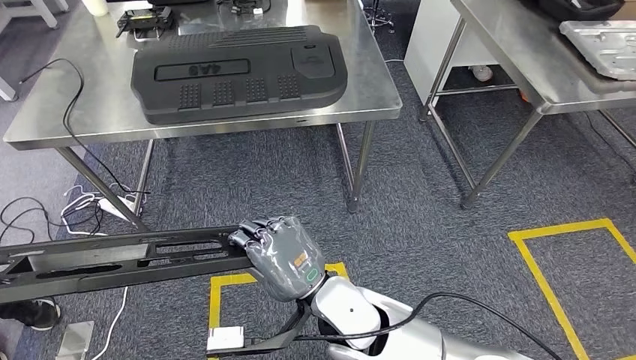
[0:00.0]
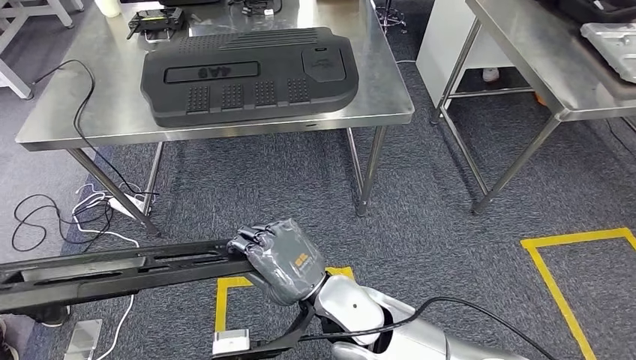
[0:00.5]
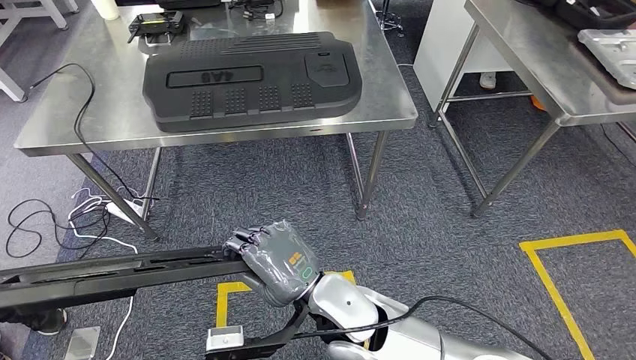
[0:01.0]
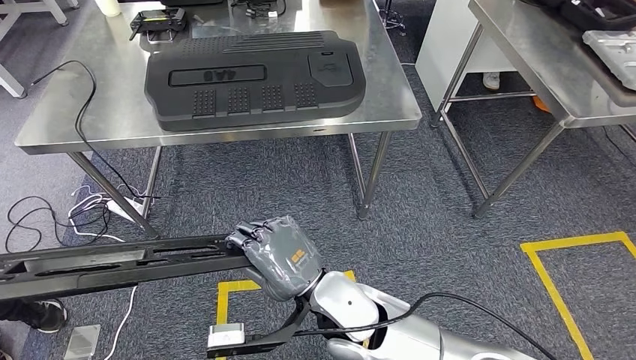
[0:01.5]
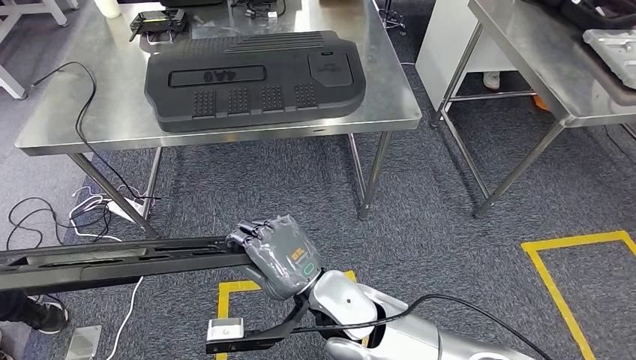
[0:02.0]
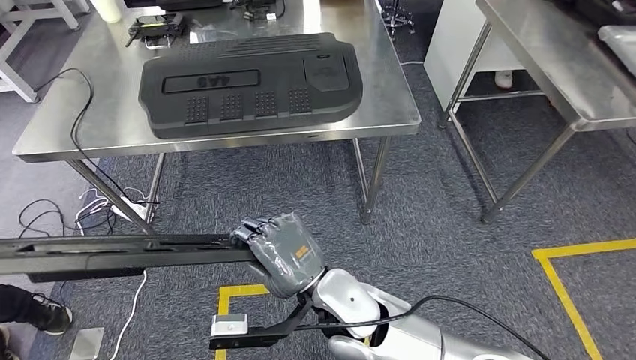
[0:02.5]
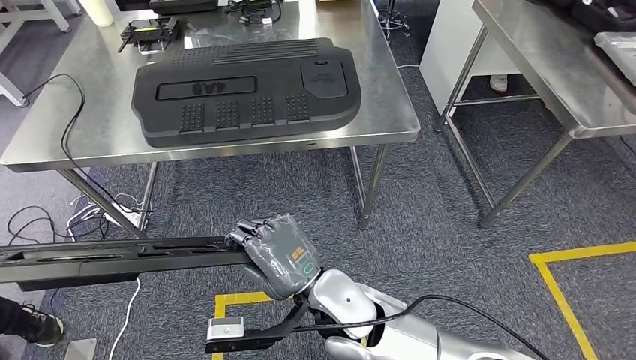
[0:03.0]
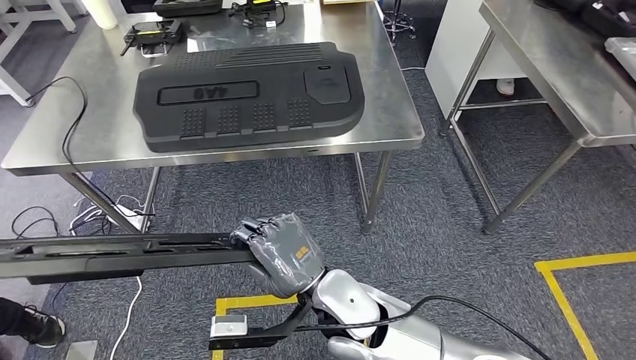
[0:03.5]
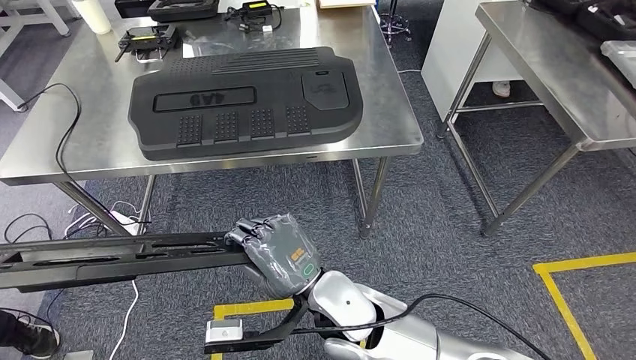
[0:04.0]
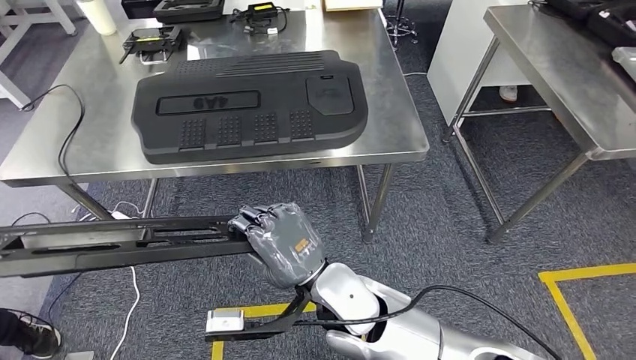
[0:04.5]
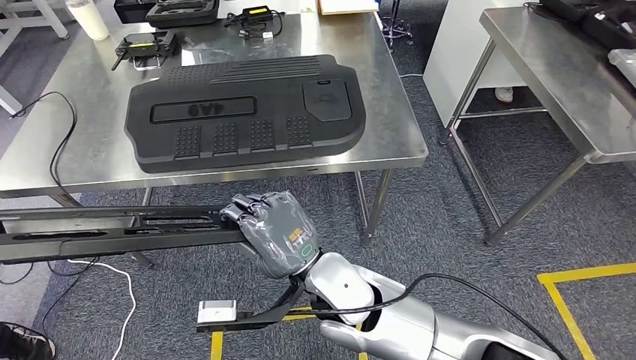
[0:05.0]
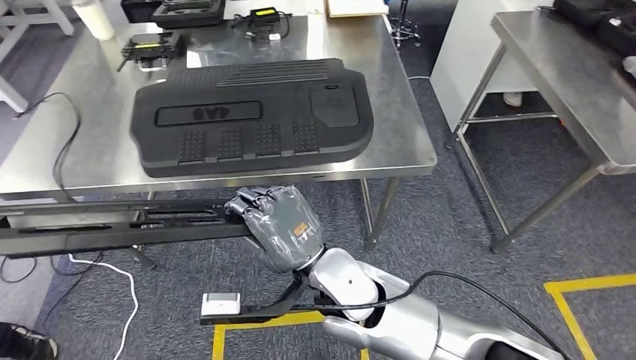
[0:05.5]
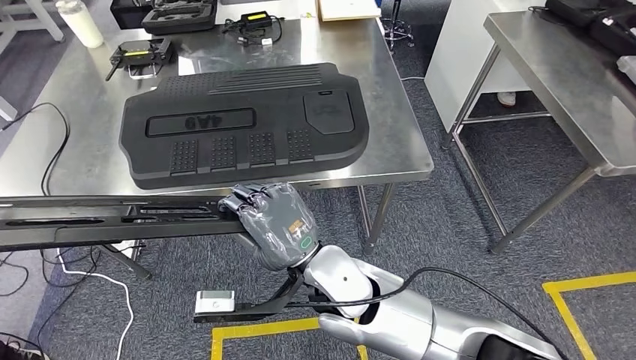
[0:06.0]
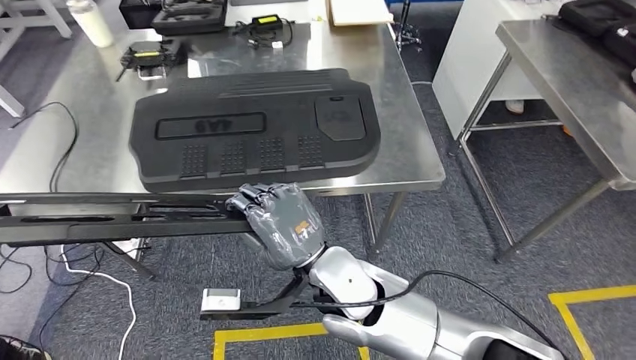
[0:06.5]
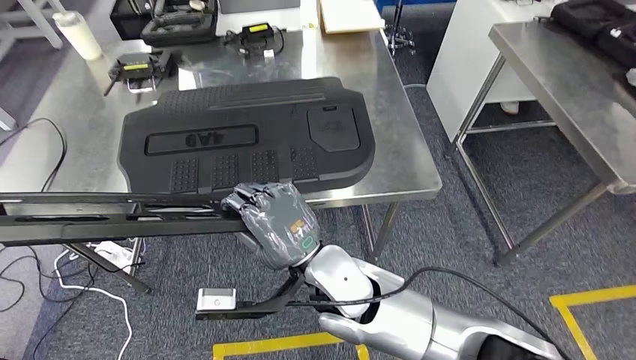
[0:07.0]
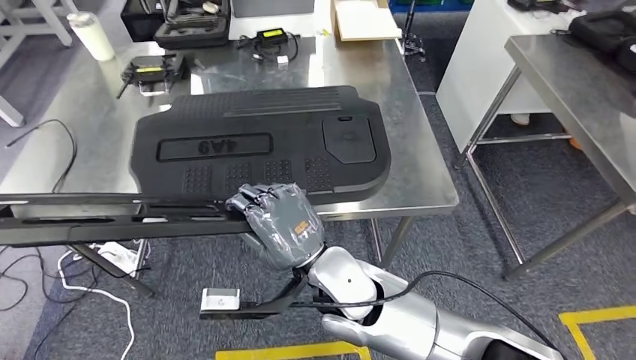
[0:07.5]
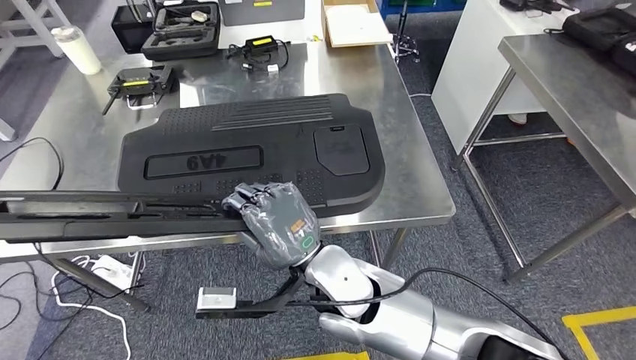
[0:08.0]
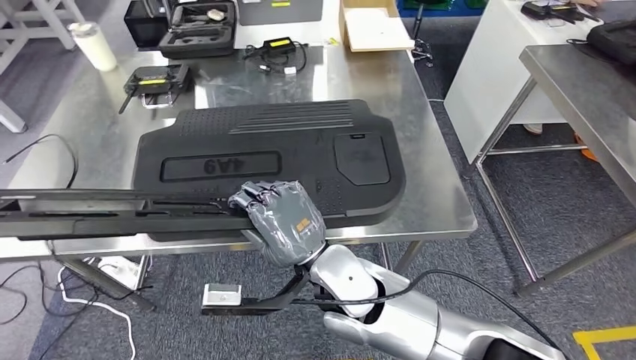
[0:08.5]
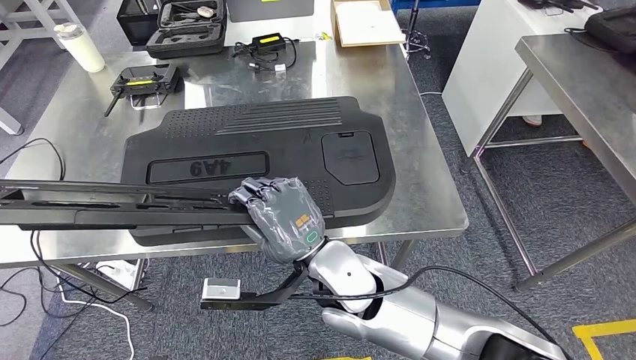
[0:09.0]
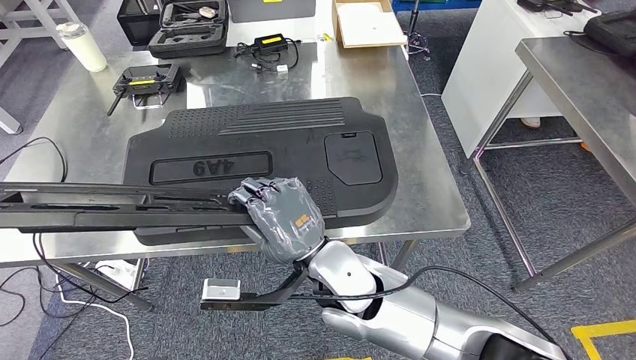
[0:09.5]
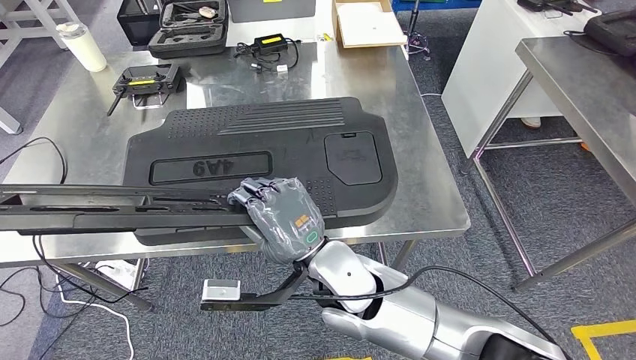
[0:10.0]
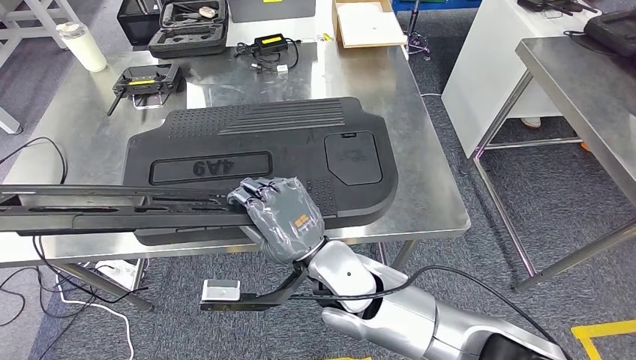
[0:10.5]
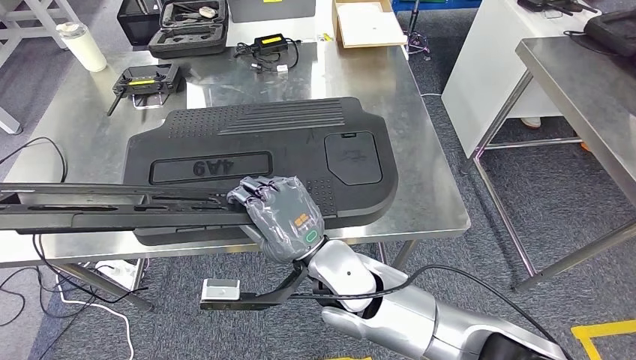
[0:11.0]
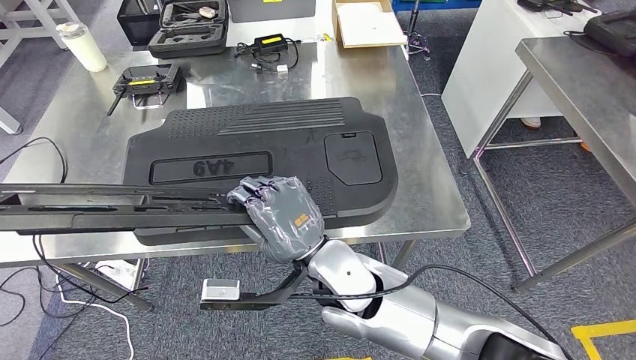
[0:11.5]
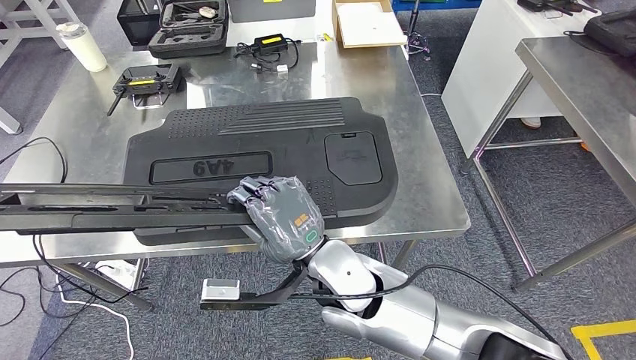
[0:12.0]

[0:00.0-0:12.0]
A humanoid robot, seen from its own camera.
Step, 0:00.0 to 0:06.5: Move the large material to the front of the workbench.
0:10.0 to 0:12.0: The two hands keep their place.

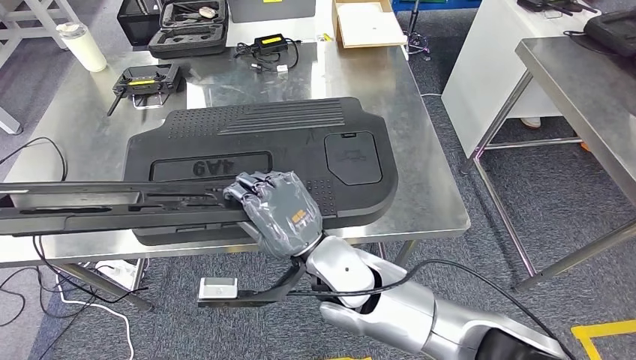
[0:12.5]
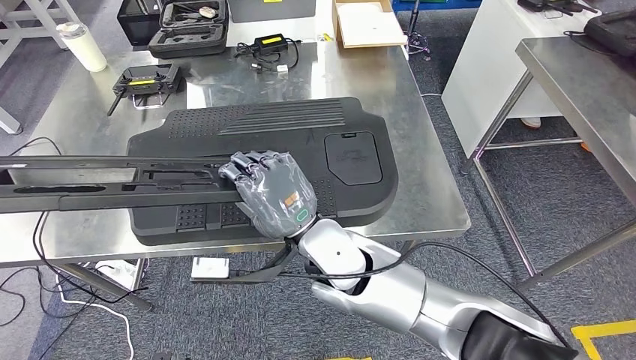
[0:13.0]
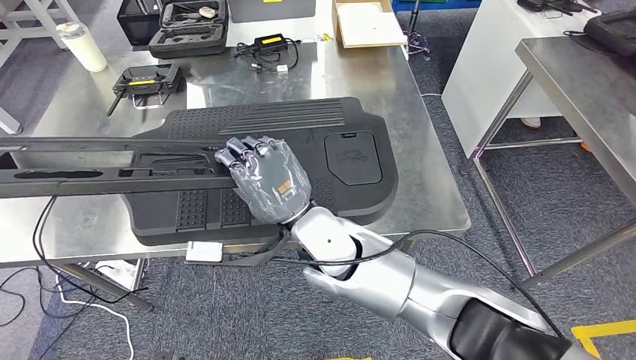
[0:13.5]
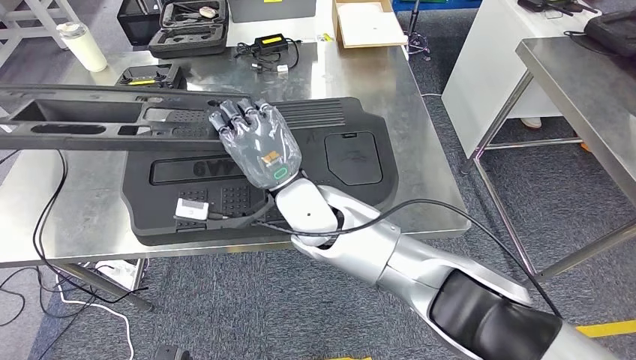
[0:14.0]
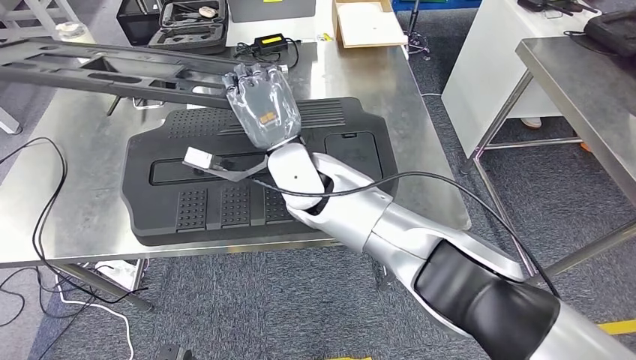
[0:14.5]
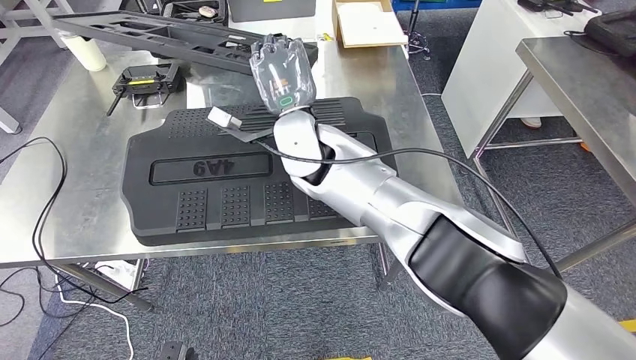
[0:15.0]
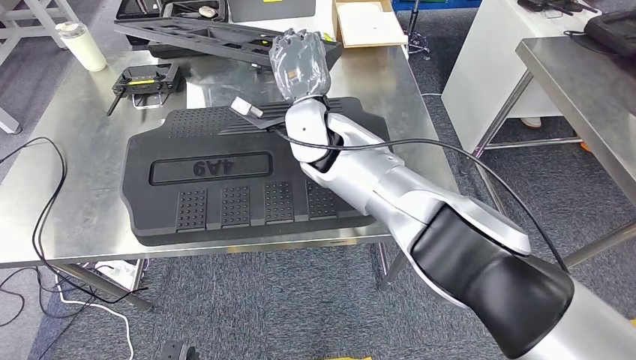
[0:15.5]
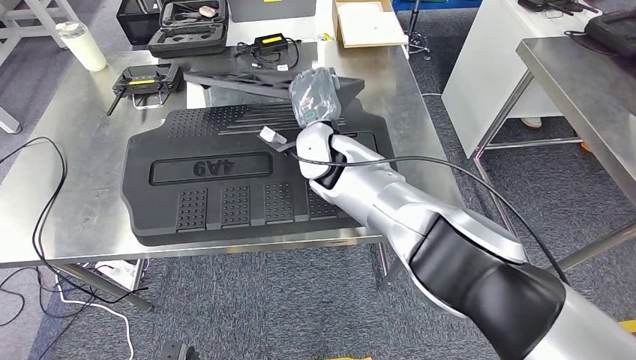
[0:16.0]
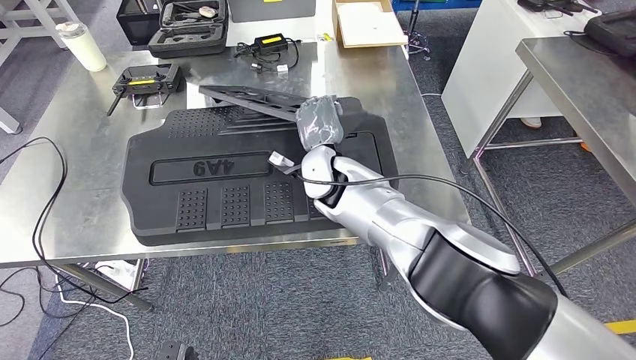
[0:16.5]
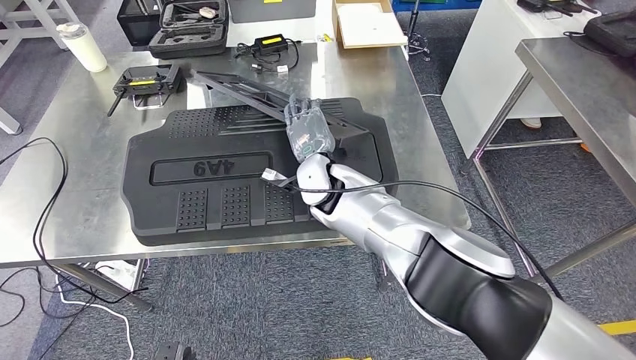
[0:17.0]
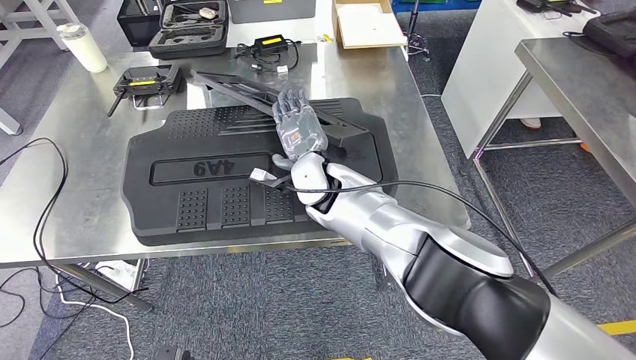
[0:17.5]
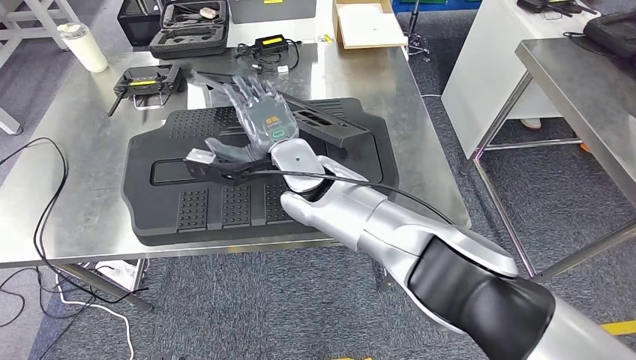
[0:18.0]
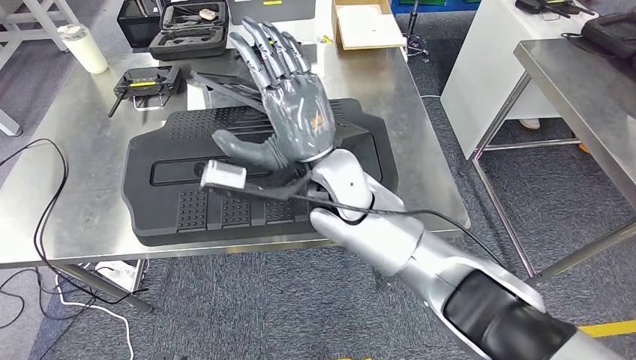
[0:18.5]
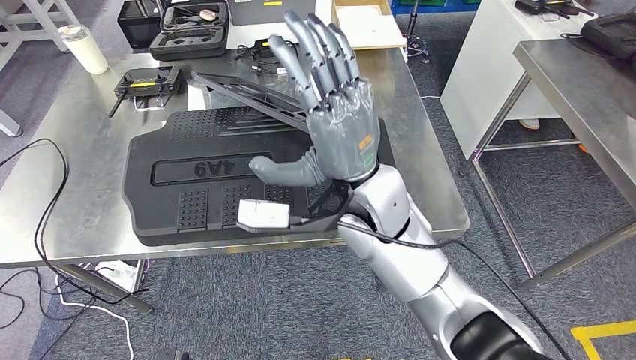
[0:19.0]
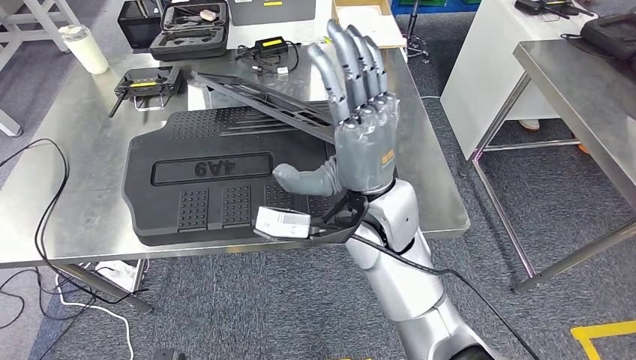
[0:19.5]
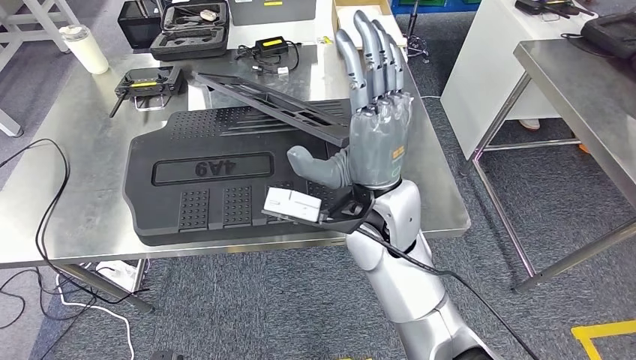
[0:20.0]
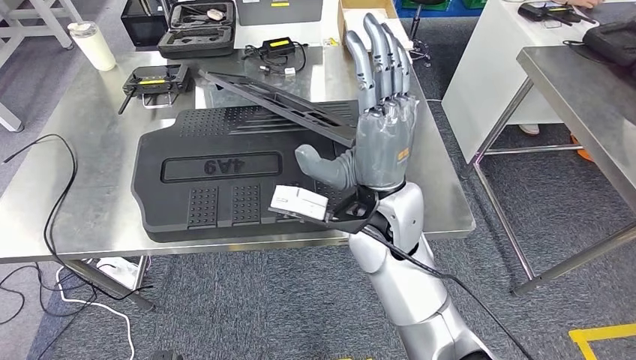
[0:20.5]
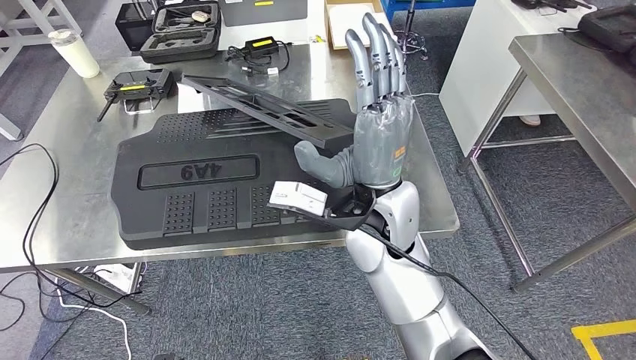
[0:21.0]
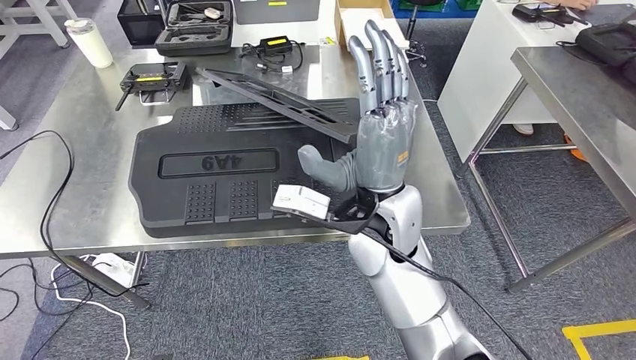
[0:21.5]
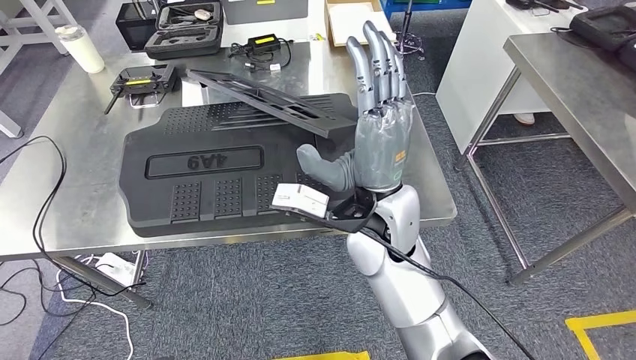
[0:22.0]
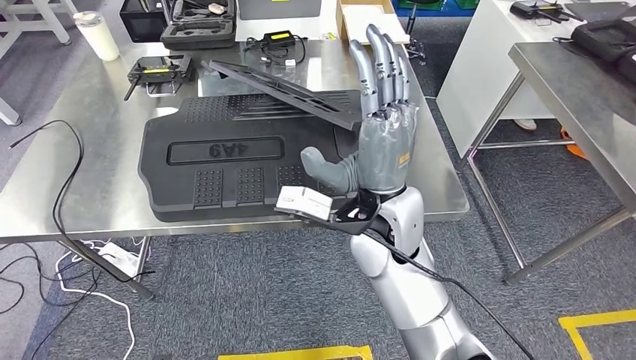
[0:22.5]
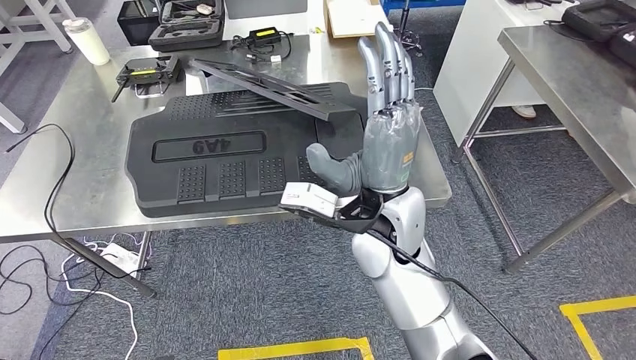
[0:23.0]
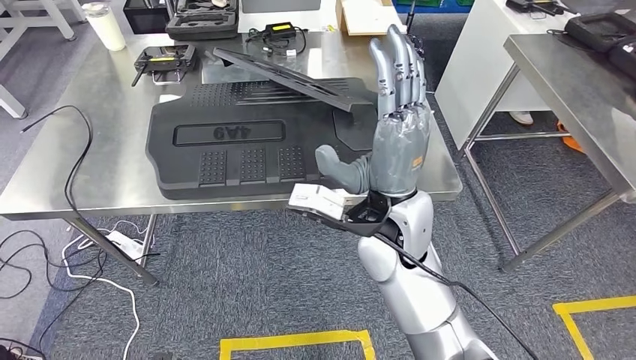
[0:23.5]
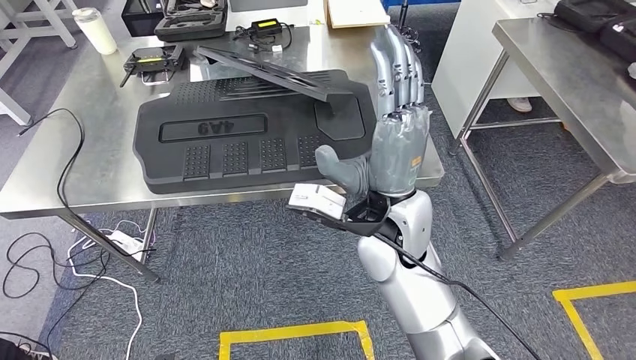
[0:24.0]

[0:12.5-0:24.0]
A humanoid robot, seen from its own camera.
0:14.5 to 0:16.5: The right hand moves downward, about 5 cm.
